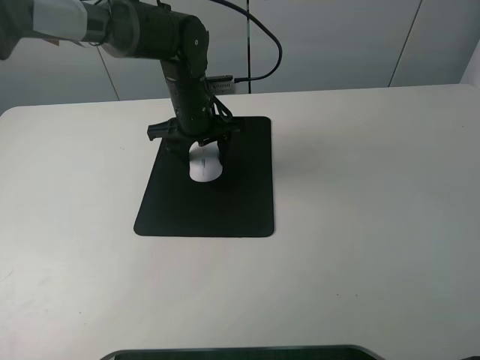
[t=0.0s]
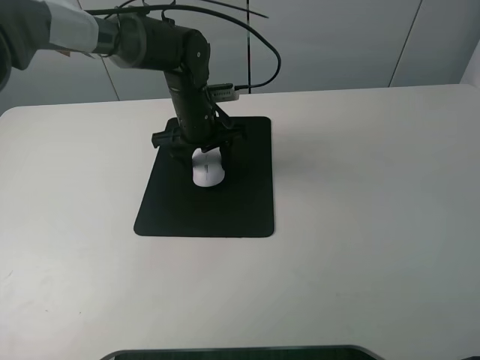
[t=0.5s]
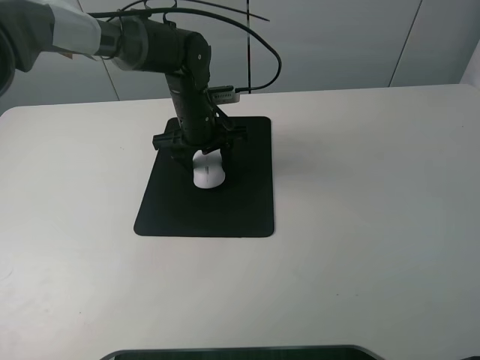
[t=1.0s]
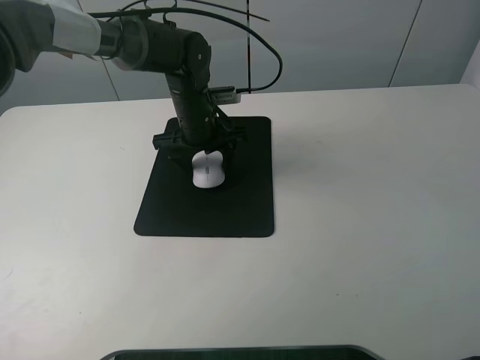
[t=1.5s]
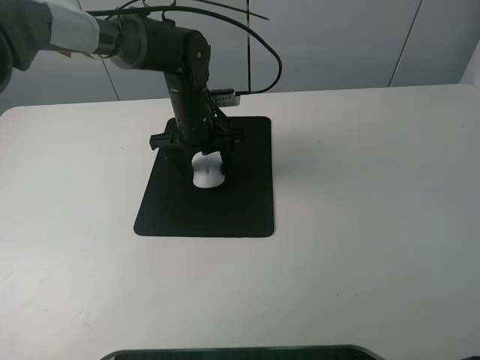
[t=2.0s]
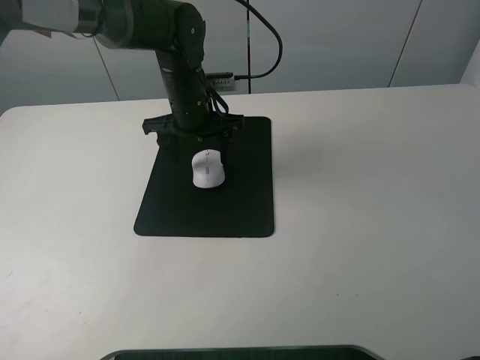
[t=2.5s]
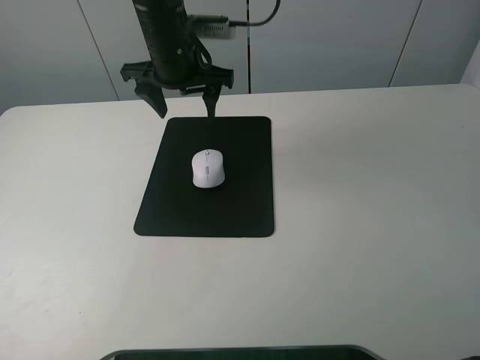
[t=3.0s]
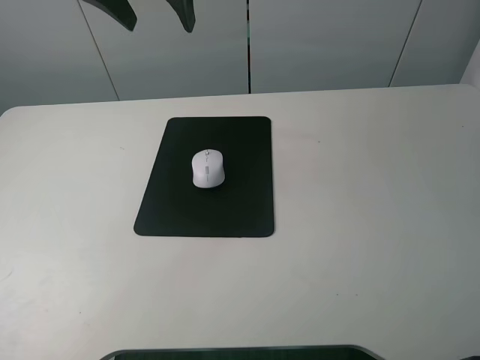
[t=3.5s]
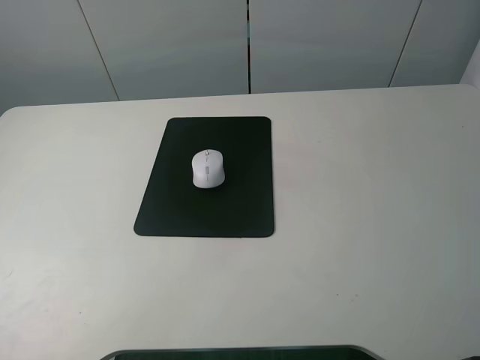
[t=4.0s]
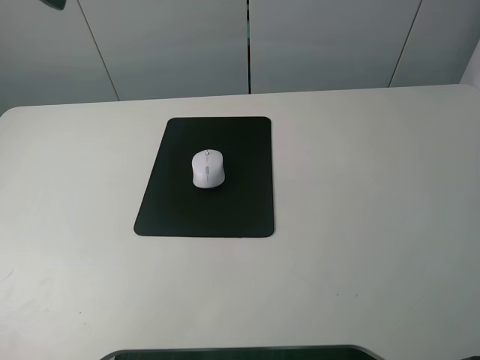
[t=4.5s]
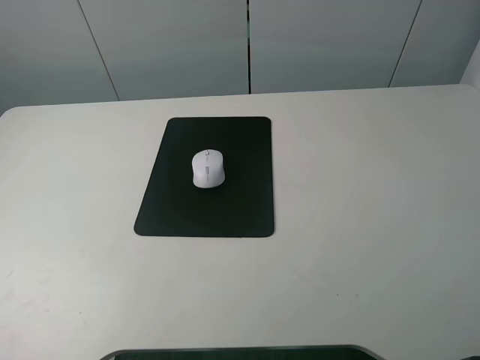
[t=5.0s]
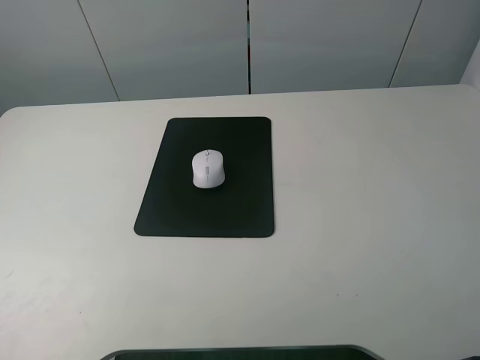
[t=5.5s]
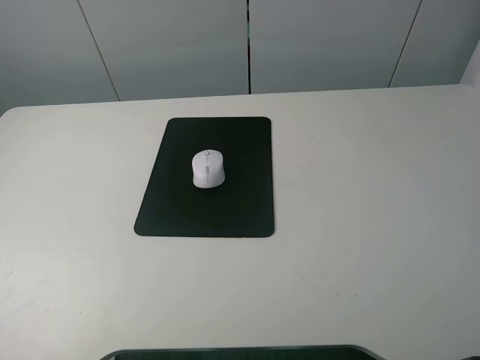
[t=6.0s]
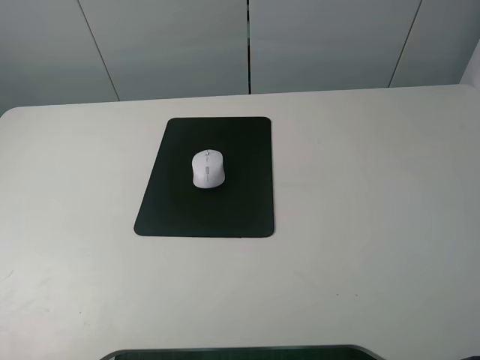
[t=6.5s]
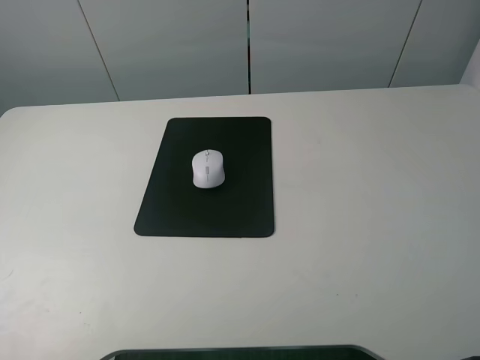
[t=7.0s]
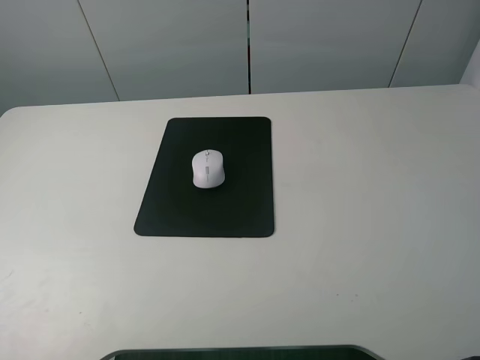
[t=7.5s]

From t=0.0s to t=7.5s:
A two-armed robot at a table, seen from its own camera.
From t=0.0s to t=2.0s: The left gripper opens.
From t=2.0s to t=4.0s: The left gripper is displaced upward by approximately 30 cm, and opens up.
